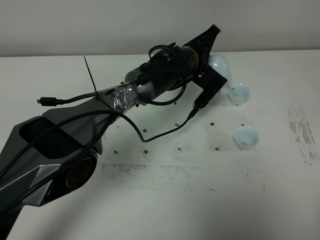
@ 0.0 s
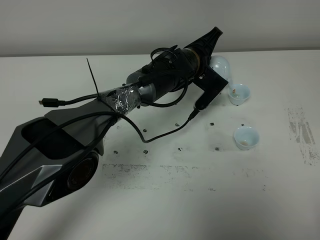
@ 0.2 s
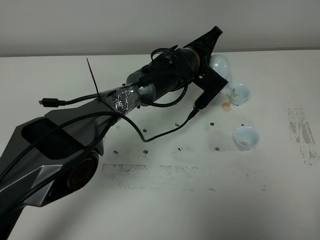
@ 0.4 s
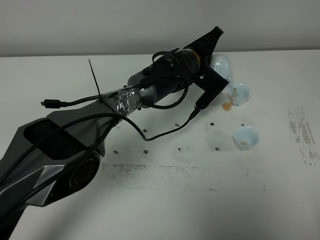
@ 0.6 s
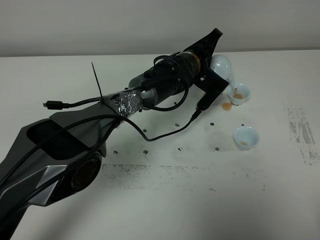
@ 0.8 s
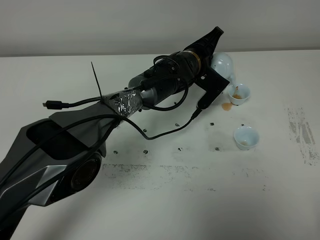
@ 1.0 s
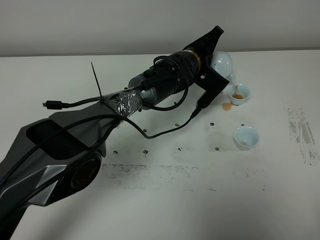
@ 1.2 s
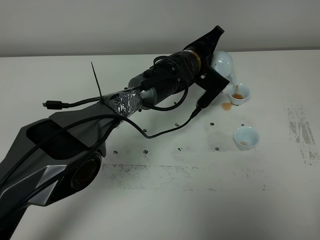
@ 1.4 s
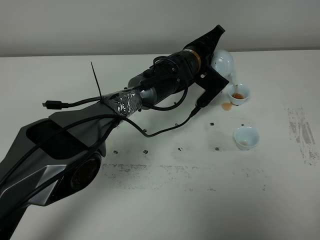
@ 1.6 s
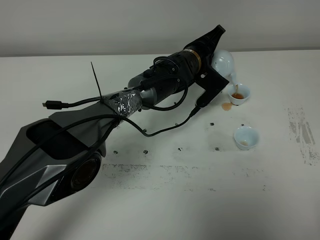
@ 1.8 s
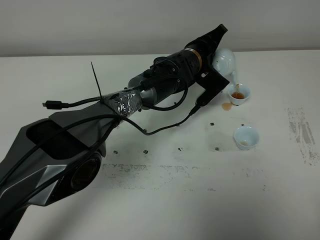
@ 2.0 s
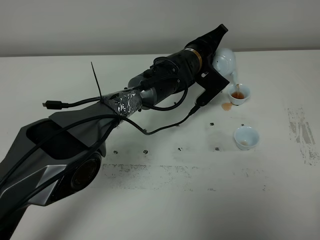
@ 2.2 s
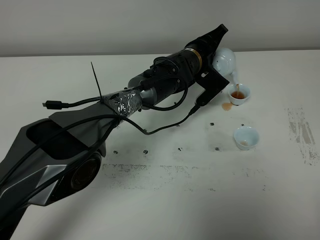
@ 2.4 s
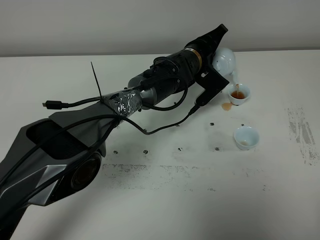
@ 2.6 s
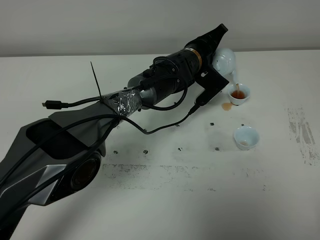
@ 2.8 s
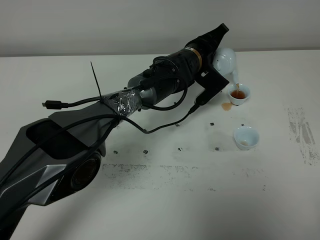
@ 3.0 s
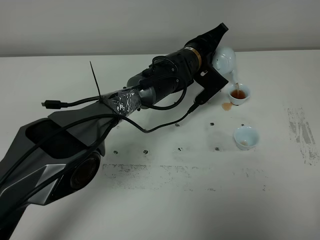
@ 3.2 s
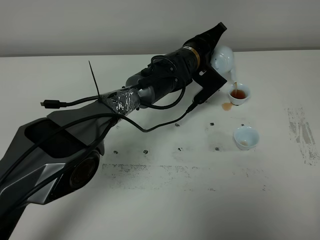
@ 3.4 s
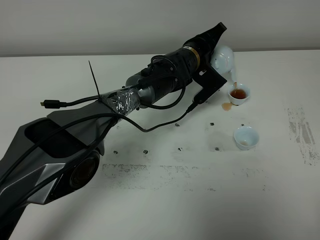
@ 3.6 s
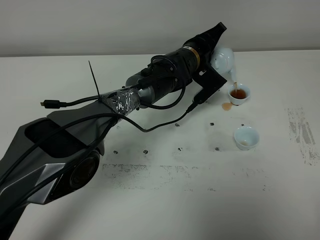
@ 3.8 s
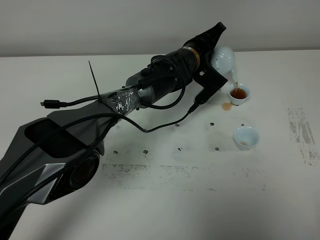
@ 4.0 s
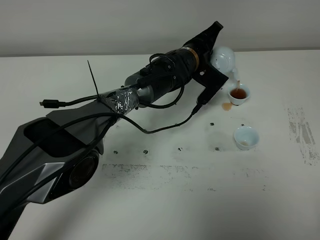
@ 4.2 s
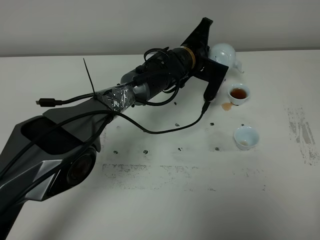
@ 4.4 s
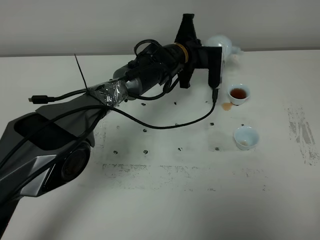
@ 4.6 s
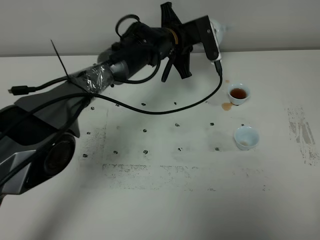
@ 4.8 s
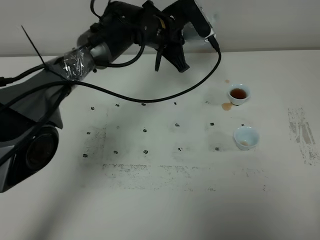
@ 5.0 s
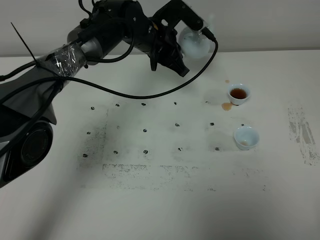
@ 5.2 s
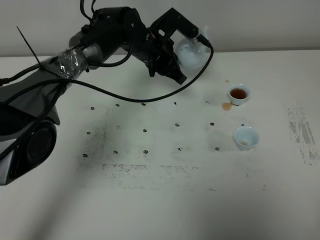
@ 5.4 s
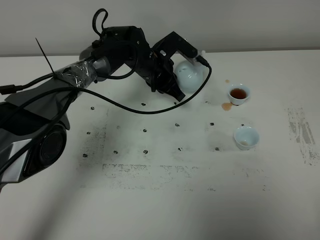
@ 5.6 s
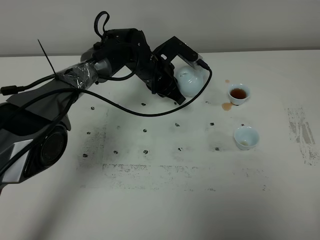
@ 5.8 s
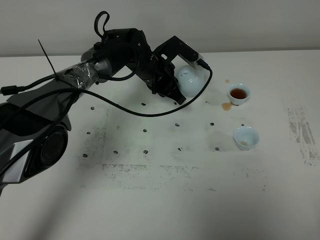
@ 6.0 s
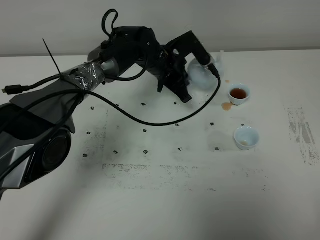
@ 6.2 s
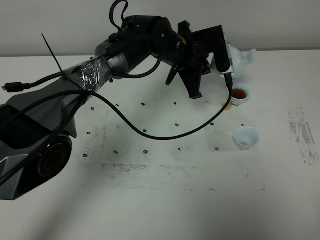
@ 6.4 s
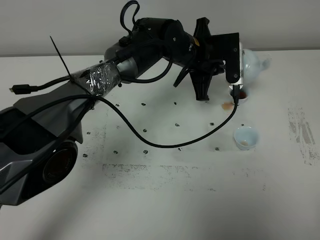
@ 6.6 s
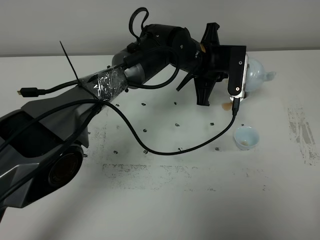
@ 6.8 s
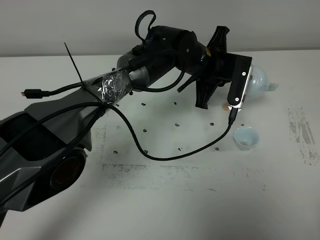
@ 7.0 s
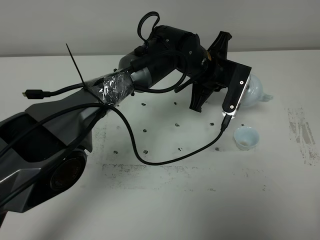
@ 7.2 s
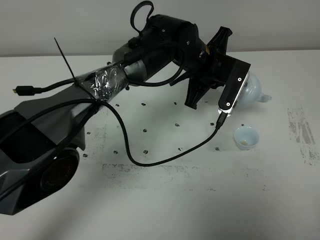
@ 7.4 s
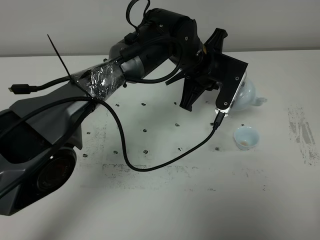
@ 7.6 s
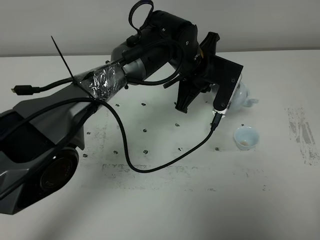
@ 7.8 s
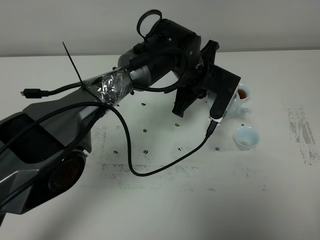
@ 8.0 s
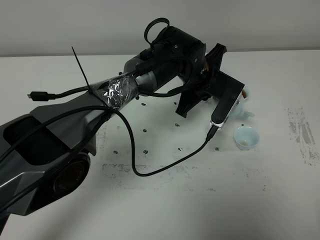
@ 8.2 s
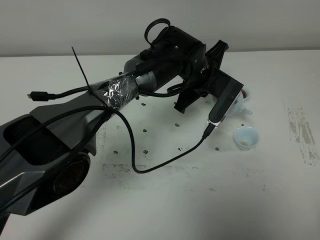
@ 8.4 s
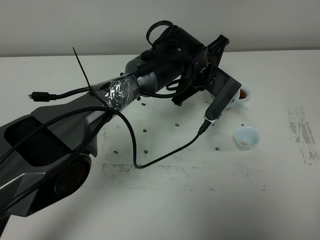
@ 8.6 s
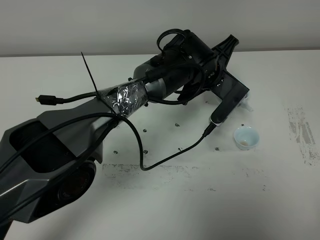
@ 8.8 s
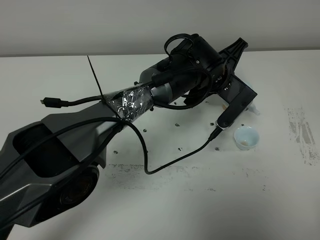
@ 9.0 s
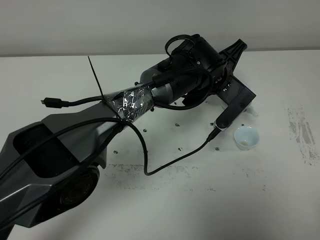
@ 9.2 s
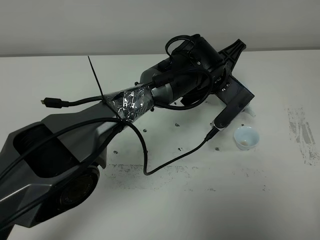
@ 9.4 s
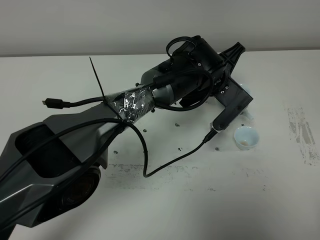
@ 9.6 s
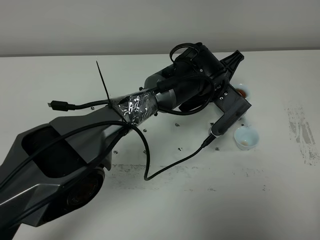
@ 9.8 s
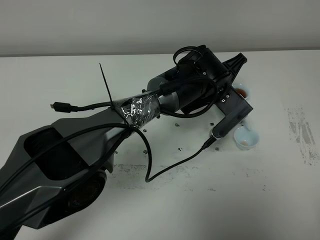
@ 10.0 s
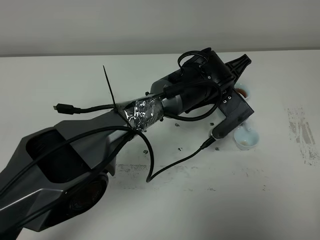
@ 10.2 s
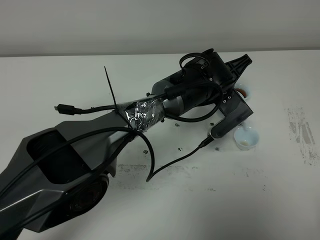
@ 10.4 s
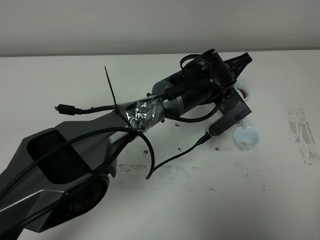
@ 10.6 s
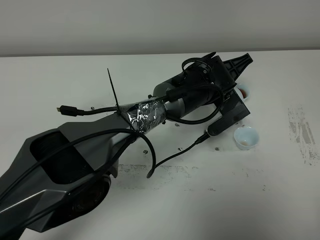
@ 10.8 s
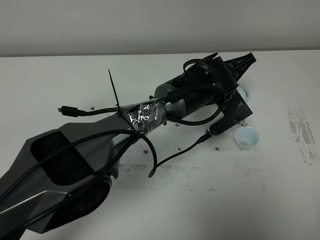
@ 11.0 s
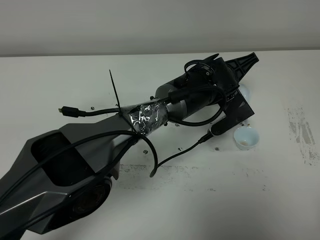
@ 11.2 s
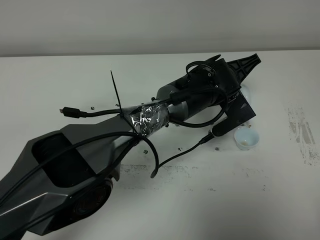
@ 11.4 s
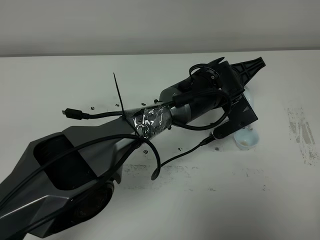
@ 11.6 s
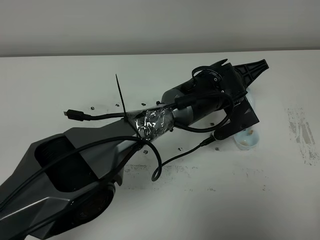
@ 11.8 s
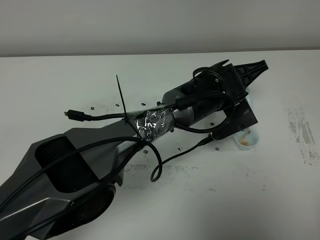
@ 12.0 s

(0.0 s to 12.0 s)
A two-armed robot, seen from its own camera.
Task of the whole recording: grasp the blue porcelain teapot and pour the tea into the two blue porcelain teacups one by one, put the blue porcelain teapot back in its original place.
Step, 0.0 s - 4.4 s: Pour tea into the teacup with the left gripper.
0.0 s - 3.0 s: There are only small adjustments of the grippers.
4.4 s - 6.0 s: The left gripper goes roughly 10 cm to the left, and reaches some 5 cm upward, then returns.
6.0 s - 7.6 s: The left gripper heads to the right, upward and backward, covering roughly 15 cm.
9.0 s - 10.4 s: The grippers make only small movements.
10.4 s - 12.0 s: The grippers move only a little.

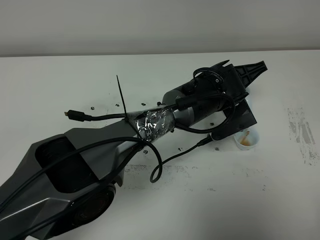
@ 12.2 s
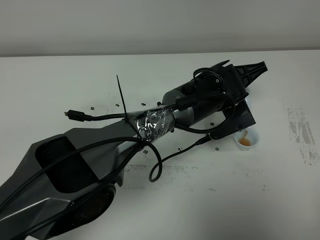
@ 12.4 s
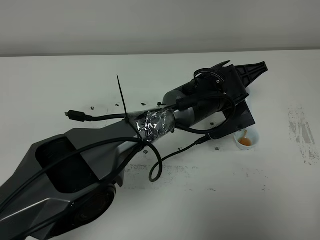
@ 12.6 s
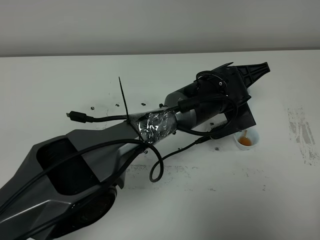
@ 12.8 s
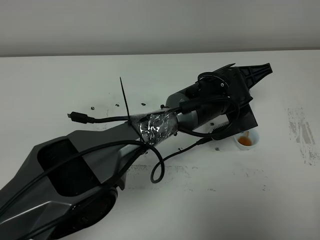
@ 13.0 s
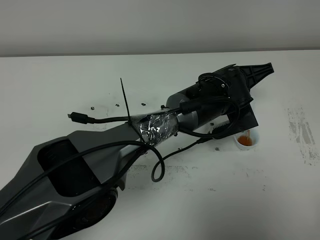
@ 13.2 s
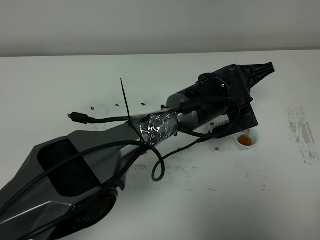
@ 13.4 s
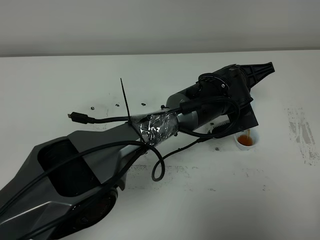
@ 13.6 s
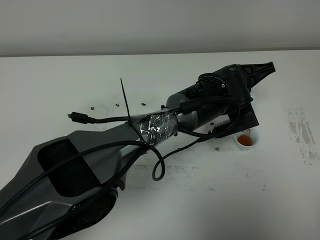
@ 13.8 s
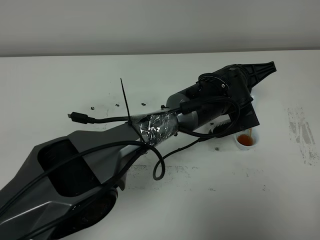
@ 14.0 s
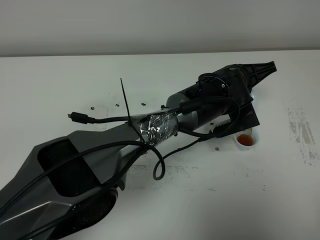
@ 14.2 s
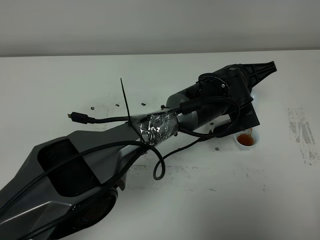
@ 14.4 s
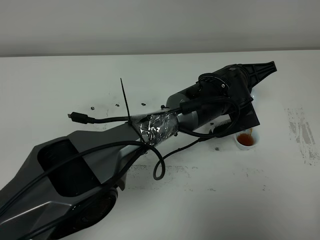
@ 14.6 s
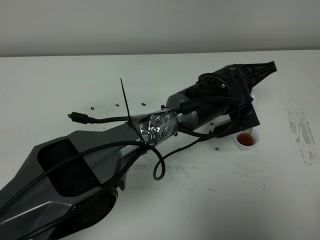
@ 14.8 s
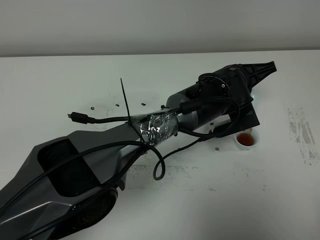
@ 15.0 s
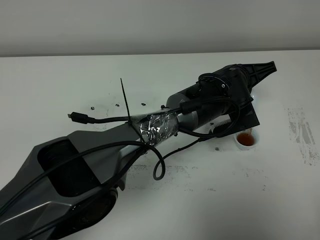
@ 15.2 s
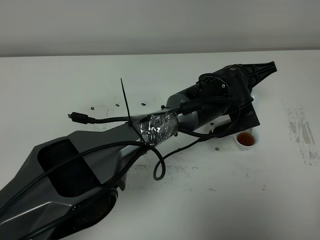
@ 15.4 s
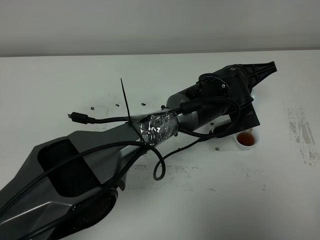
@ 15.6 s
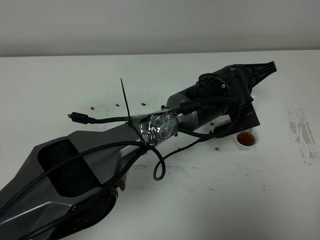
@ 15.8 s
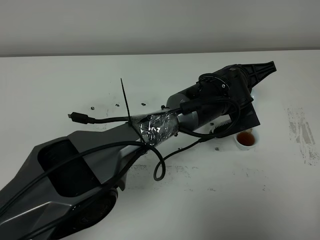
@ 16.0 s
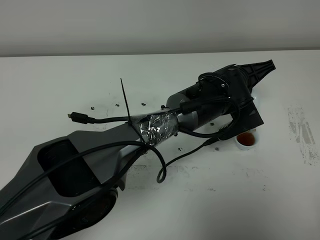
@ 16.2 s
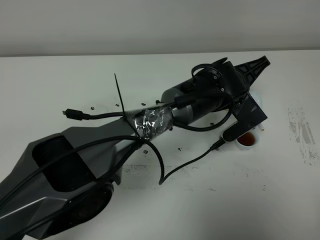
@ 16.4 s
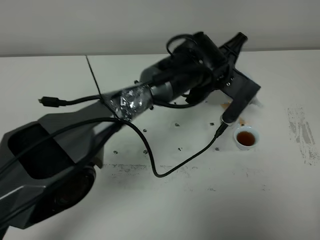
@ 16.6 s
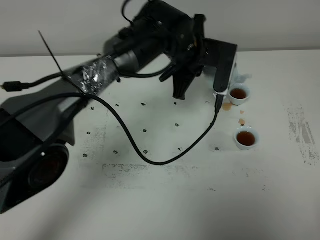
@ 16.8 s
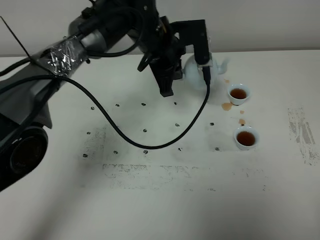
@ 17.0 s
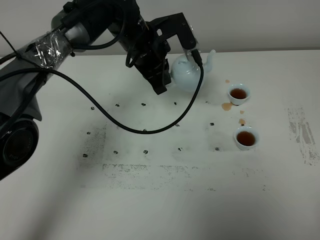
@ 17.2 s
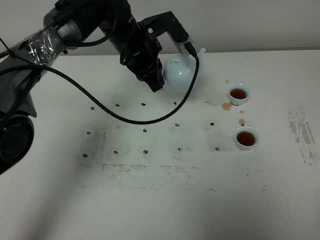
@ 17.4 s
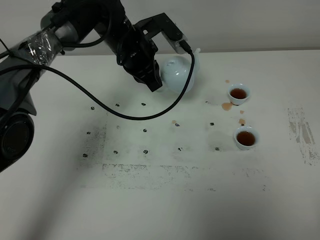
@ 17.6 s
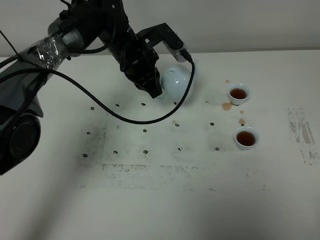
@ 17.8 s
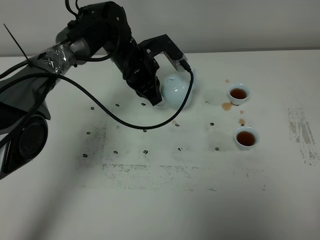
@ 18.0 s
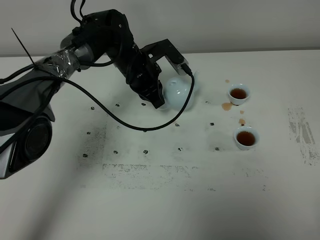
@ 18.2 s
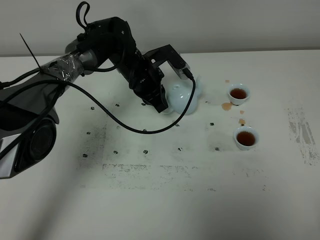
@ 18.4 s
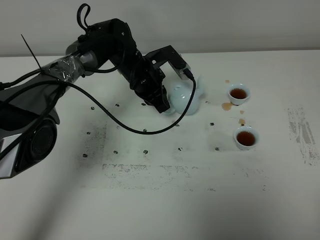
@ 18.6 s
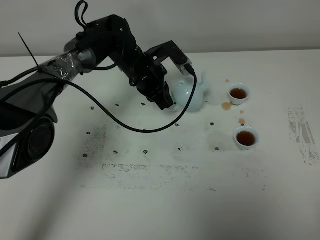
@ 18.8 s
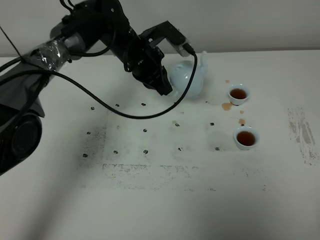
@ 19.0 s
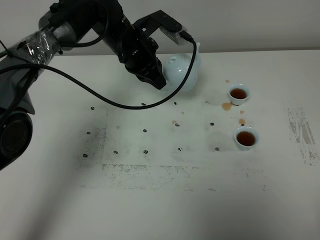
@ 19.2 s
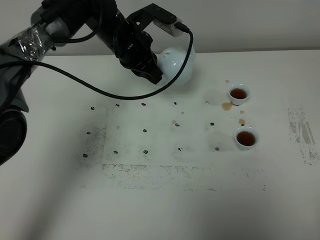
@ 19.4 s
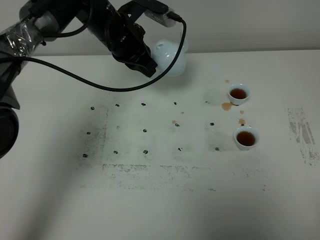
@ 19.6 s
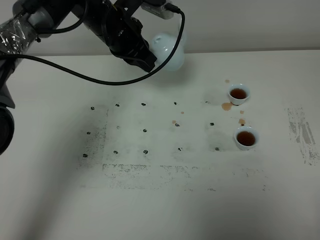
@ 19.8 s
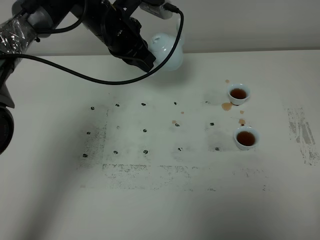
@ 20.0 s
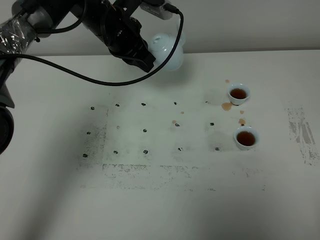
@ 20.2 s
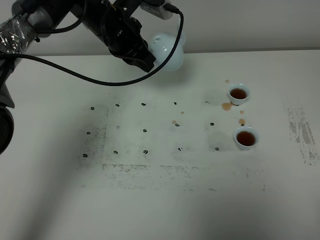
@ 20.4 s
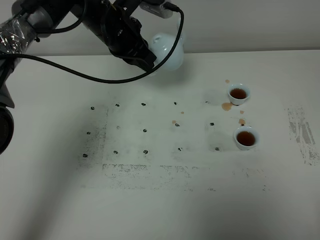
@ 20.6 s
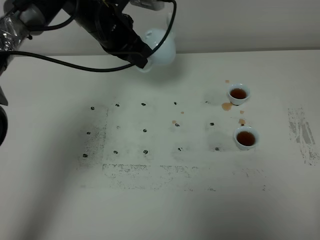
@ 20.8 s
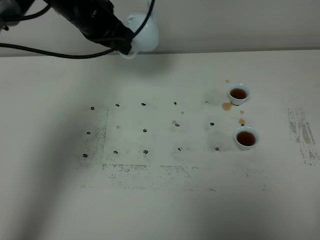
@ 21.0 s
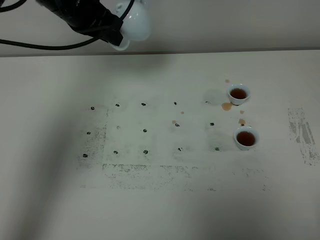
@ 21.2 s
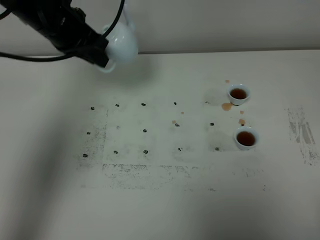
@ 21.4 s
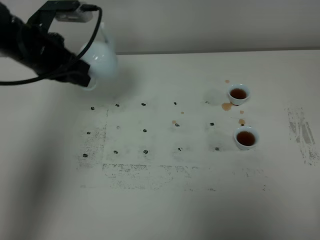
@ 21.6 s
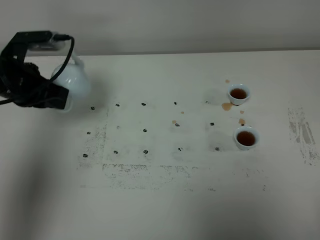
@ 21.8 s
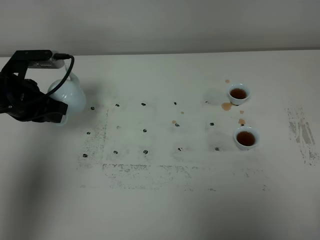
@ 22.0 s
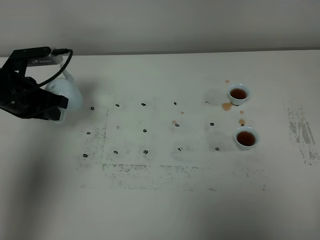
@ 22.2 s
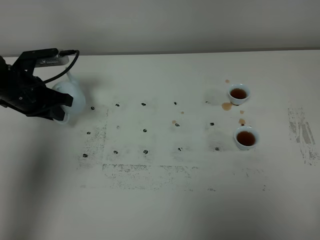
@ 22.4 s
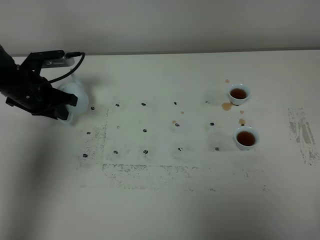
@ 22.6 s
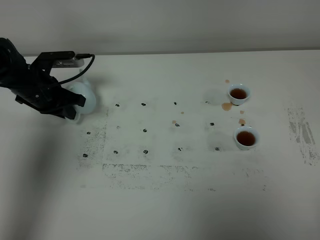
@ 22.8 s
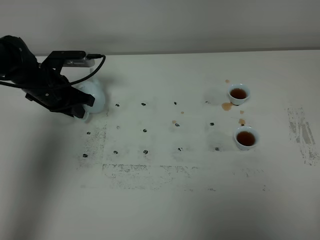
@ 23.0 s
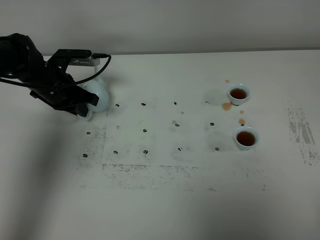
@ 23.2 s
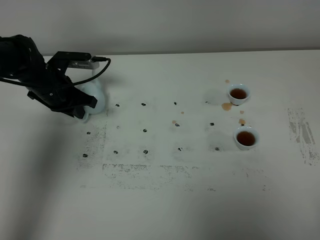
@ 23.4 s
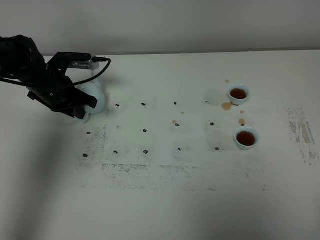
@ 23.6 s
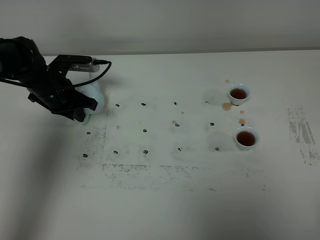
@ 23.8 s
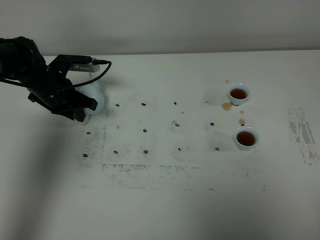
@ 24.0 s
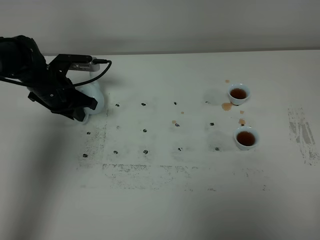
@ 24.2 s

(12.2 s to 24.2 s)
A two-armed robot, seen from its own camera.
Task of the whole recording: grasp the blue porcelain teapot and pour the tea into the two blue porcelain teacups one by one, put the blue porcelain teapot back in its original place.
Step, 12.2 s - 16.6 s: Pour tea into the teacup with the left gripper.
12.2 s - 13.8 s: The grippers make only small movements.
13.8 s - 15.2 s: Both grippers stay put.
15.2 s - 16.6 s: The left gripper shifts by some 5 cm.
16.6 s - 18.2 s: The left gripper is displaced to the left and forward by about 15 cm.
18.2 s - 19.8 s: The left gripper goes about 10 cm upward.
19.8 s - 21.2 s: The left gripper is displaced to the left and upward by some 10 cm.
21.2 s - 22.6 s: The left gripper is displaced downward and to the left by about 20 cm.
22.6 s - 24.2 s: The grippers move only a little.
